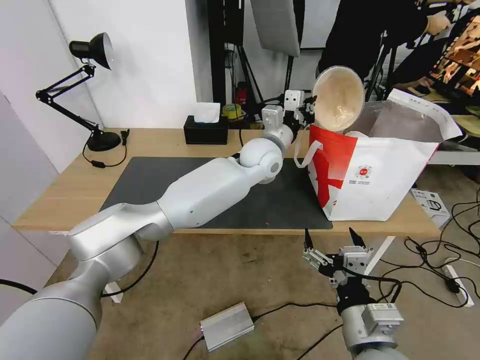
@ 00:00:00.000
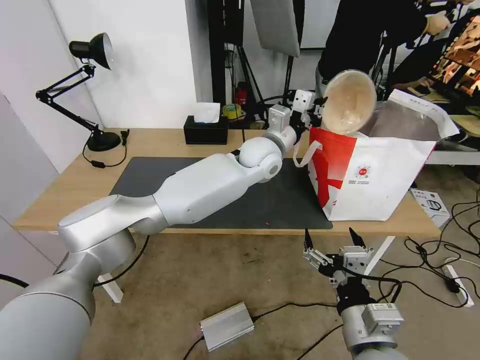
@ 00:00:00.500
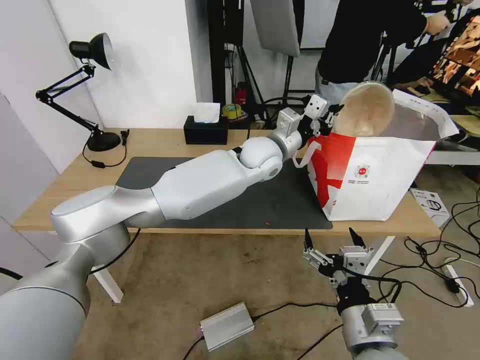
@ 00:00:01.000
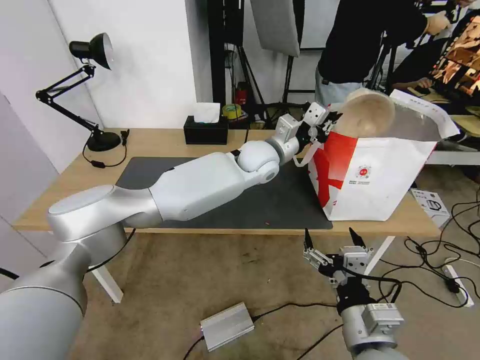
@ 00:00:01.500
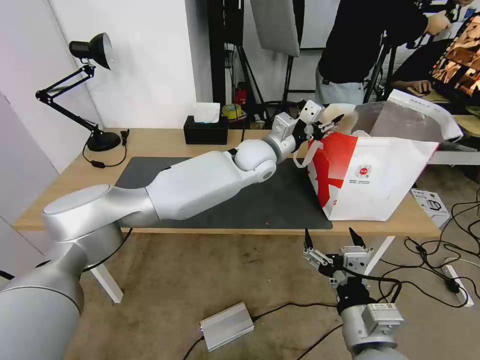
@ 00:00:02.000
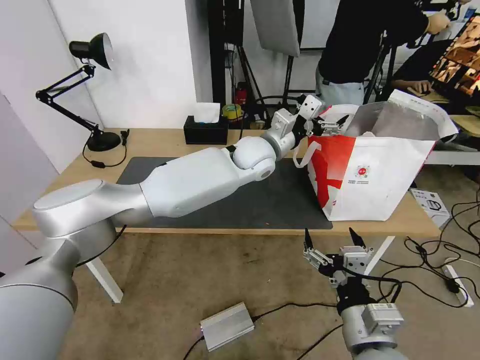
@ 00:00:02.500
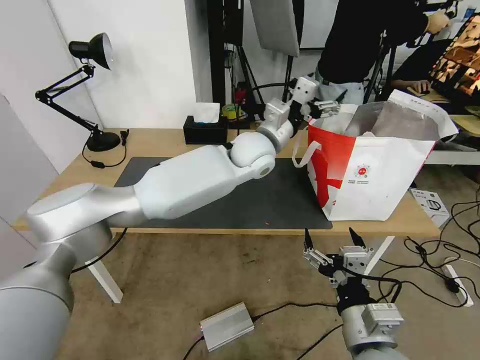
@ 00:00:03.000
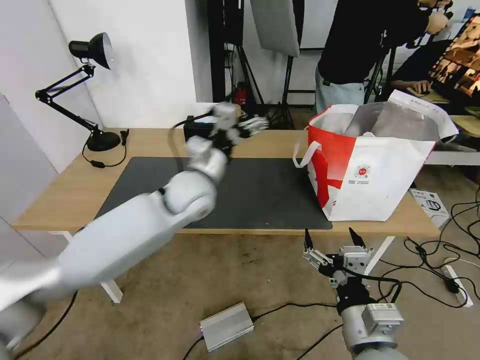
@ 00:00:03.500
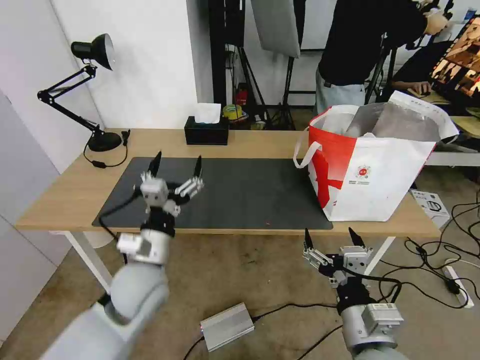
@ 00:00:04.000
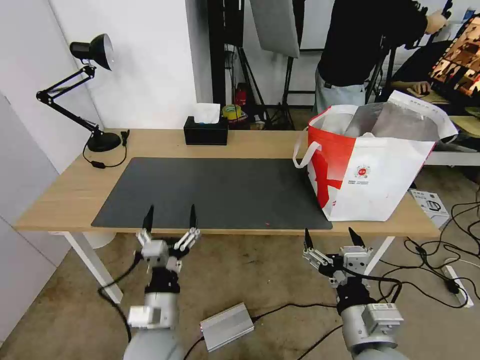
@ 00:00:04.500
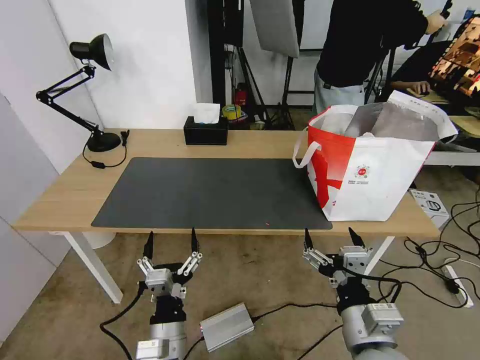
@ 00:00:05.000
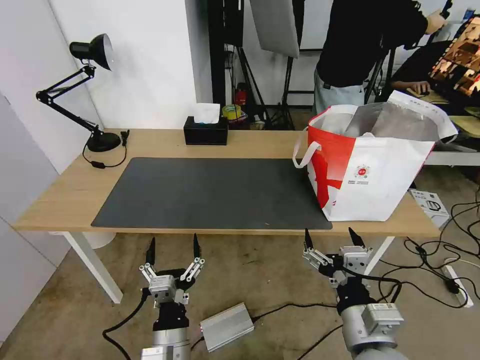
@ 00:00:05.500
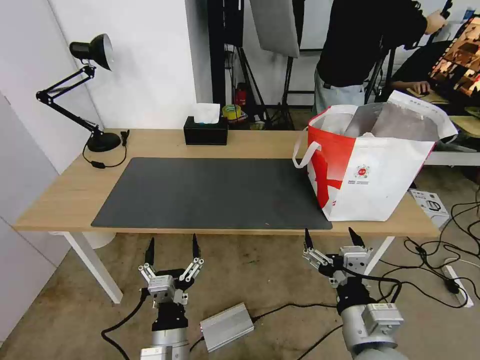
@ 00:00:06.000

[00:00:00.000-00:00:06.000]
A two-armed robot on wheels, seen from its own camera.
Task of the whole recording: Pick up the trash from the table and place it into the takeout bag.
00:00:00.000 to 00:00:02.000: The left gripper opens.
00:00:02.000 to 00:00:04.000: The left gripper is displaced backward, to the left and downward by about 35 cm, and opens up.
00:00:04.000 to 00:00:06.000: The left gripper is displaced backward and downward by roughly 20 cm.
